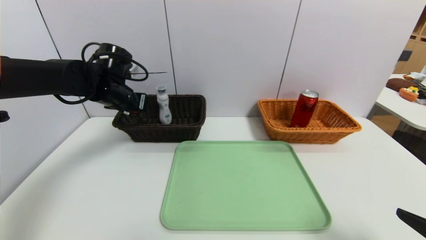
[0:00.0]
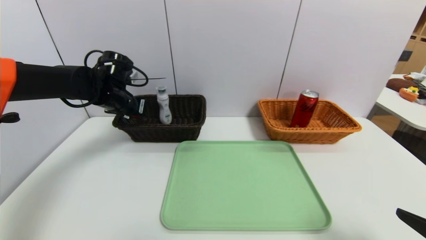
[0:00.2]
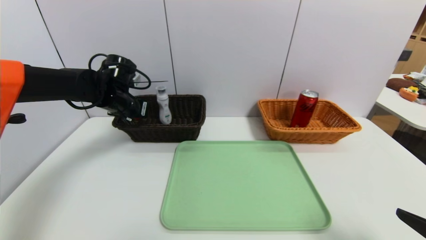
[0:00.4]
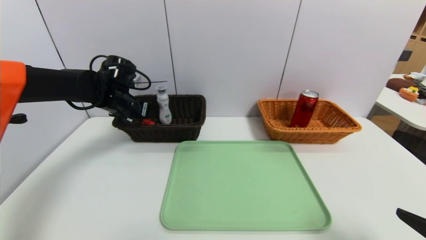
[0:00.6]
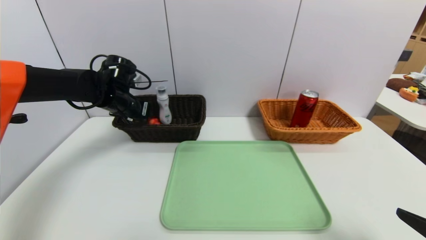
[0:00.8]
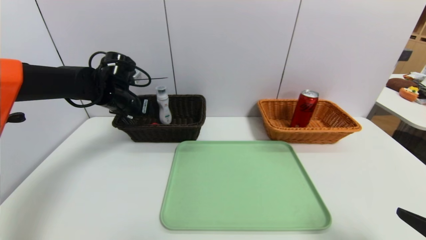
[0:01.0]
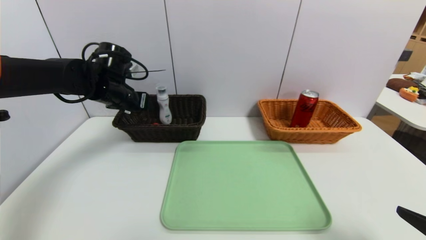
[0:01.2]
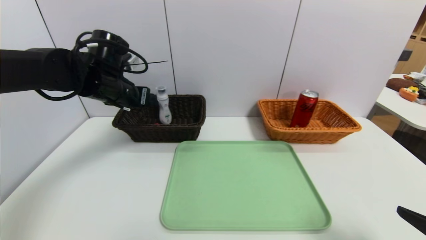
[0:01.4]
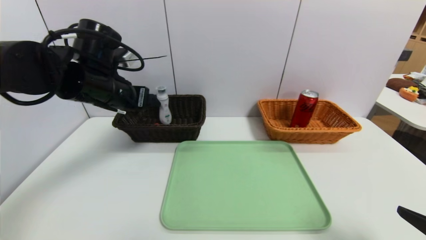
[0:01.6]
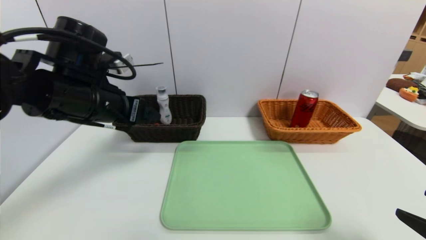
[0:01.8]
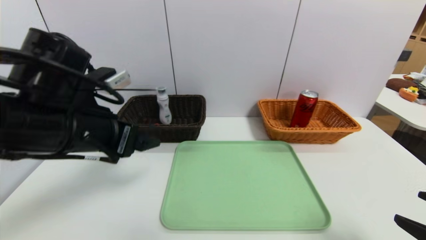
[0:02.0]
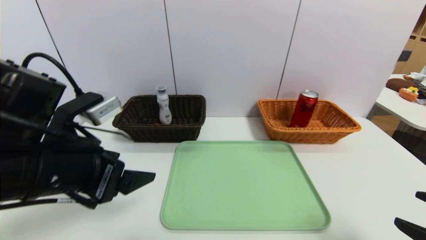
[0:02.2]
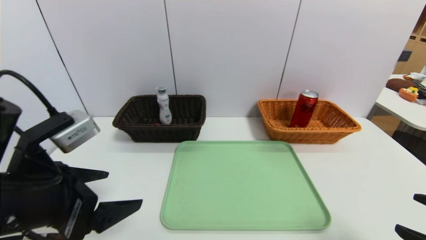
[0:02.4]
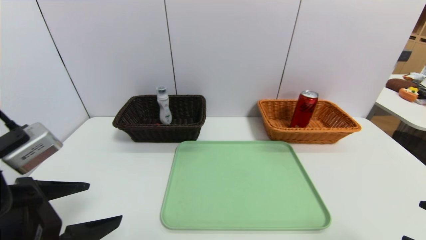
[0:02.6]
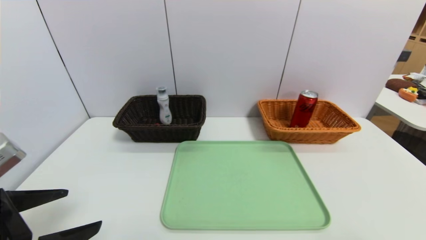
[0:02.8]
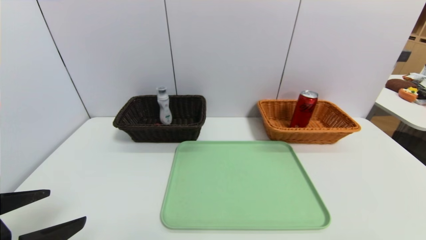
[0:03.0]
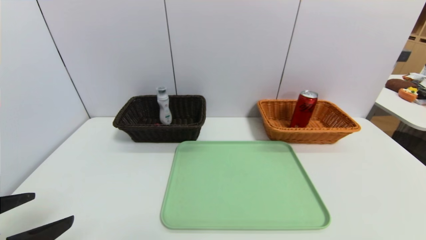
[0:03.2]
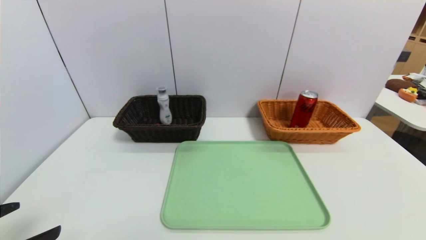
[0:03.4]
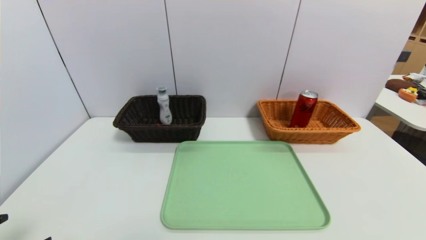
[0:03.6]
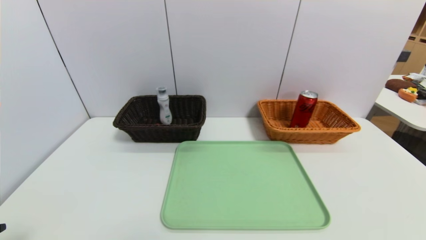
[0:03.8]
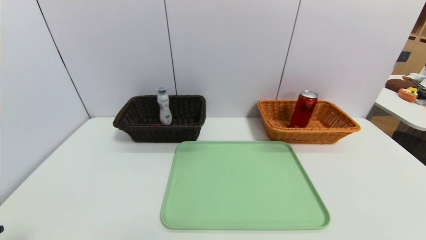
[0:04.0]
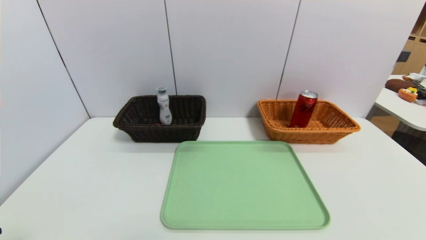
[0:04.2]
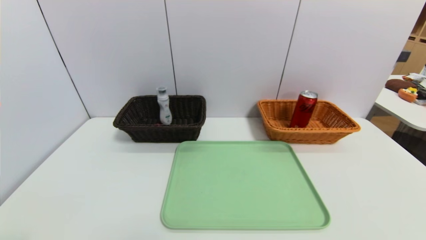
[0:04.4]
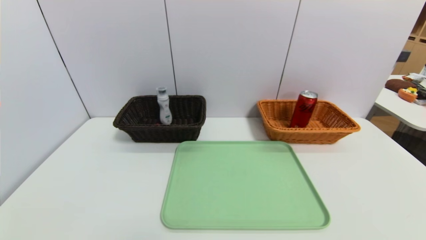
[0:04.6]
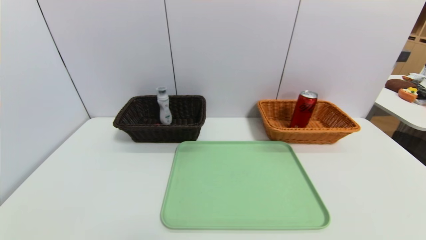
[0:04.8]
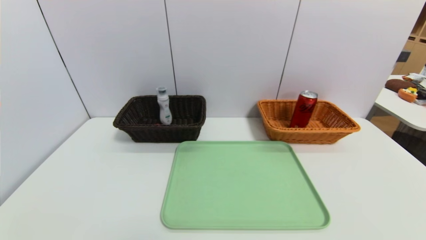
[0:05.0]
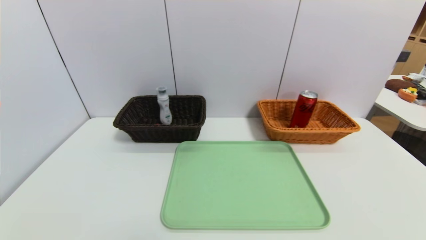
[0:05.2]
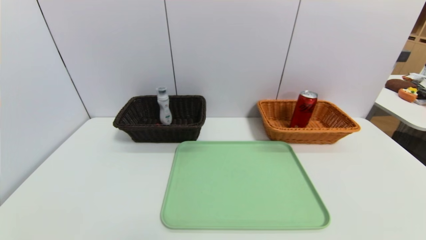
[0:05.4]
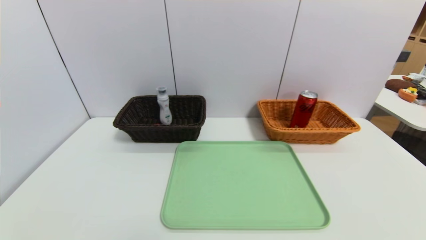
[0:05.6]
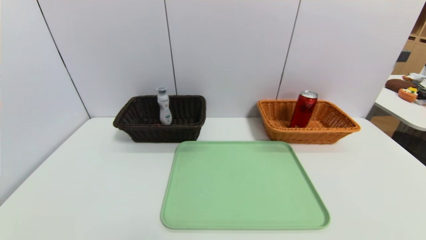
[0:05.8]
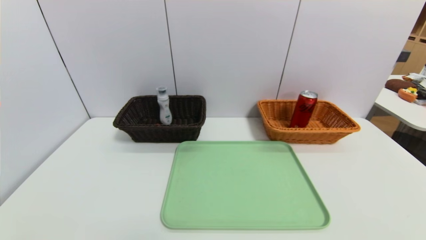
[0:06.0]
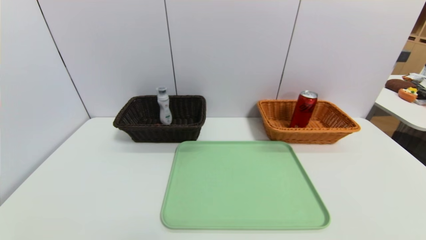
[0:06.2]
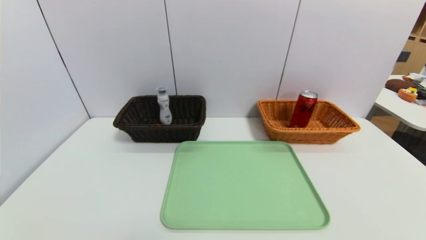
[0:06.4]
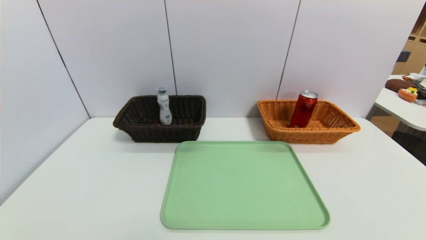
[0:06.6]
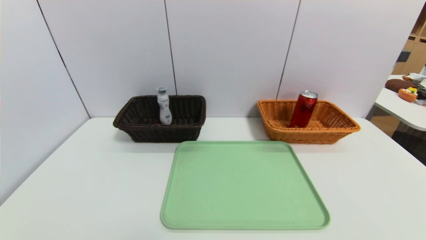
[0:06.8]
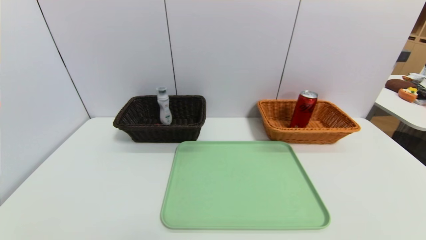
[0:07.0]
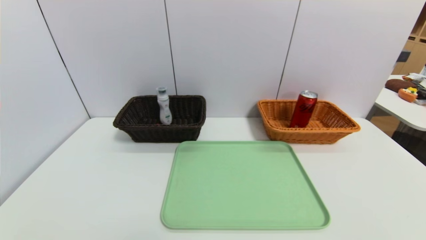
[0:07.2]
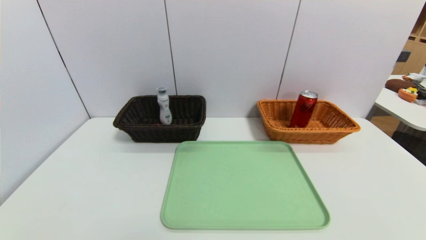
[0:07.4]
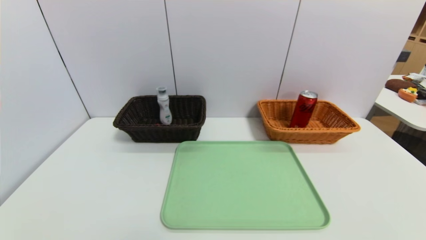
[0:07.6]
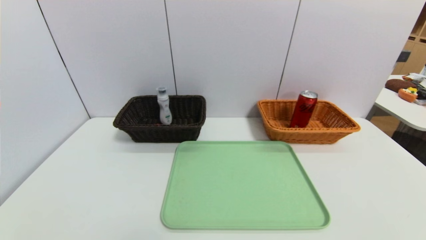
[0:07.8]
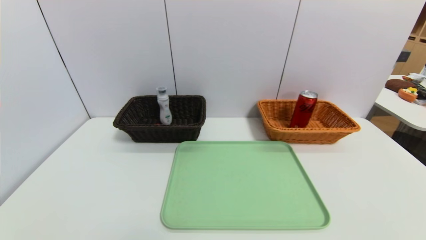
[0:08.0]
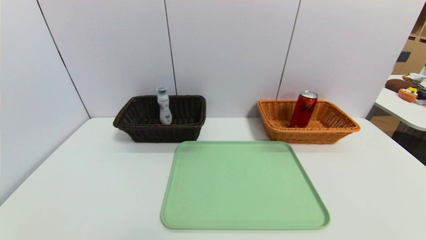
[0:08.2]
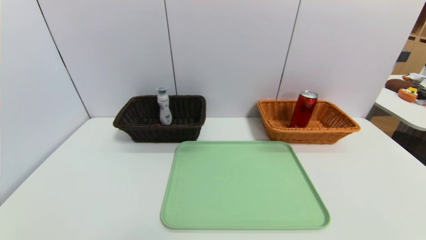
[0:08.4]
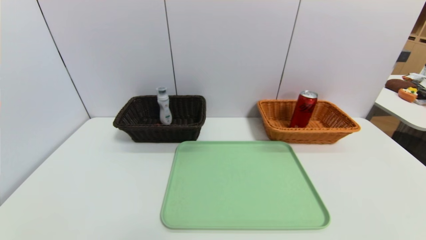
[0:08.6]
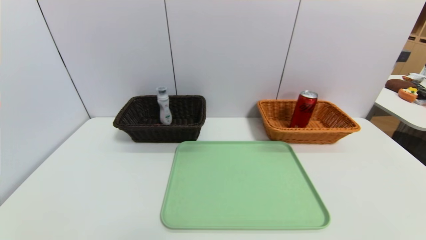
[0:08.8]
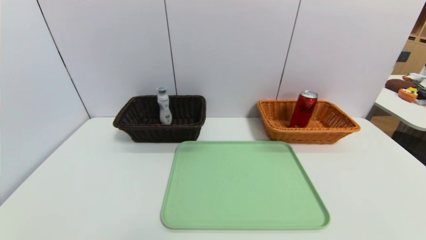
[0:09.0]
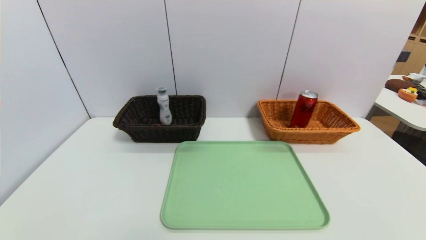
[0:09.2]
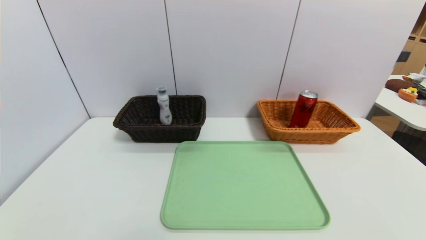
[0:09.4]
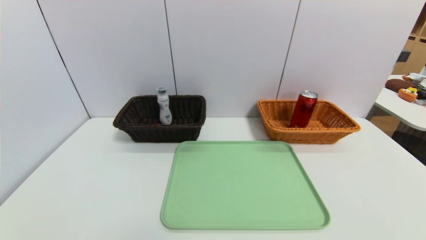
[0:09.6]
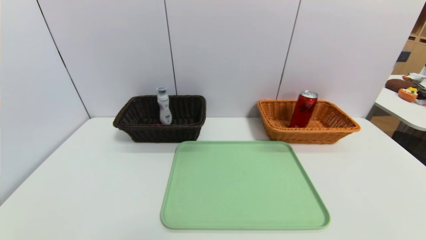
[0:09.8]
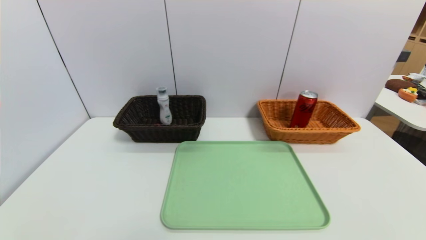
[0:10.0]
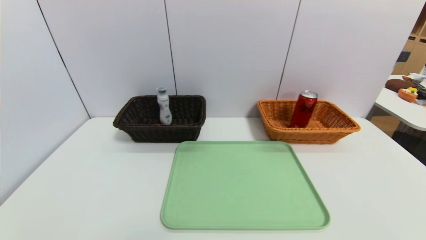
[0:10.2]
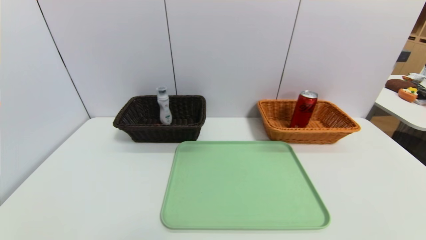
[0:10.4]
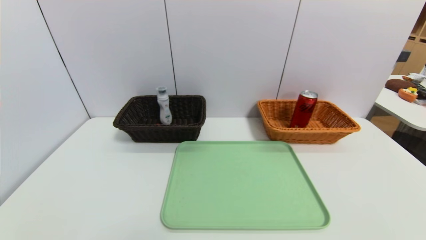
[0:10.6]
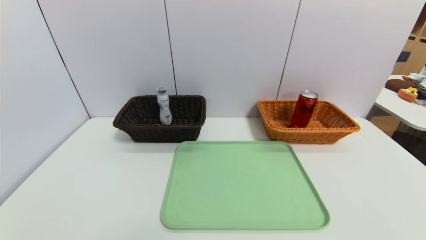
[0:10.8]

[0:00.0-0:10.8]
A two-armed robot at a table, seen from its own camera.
Task of the whole recording: place the food in the right basket with the right gripper, and place the non food items in the left basket with the left gripper.
0:00.0 to 0:01.6: The left gripper shifts roughly 10 cm backward, and opens.
0:01.6 to 0:03.0: The left gripper moves backward, some 25 cm.
0:03.0 to 0:04.6: The left gripper moves backward and downward, roughly 10 cm.
0:07.8 to 0:10.8: Both grippers stay about where they are.
